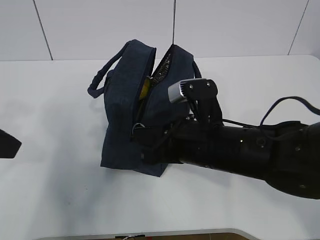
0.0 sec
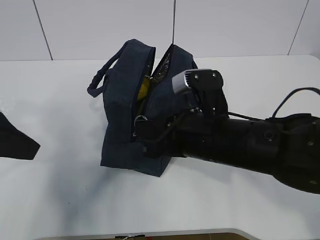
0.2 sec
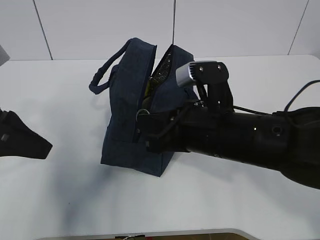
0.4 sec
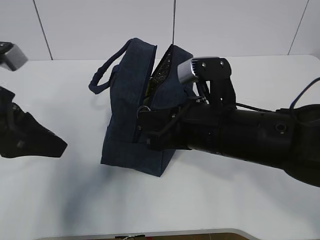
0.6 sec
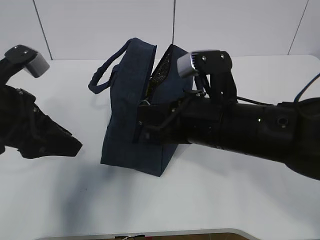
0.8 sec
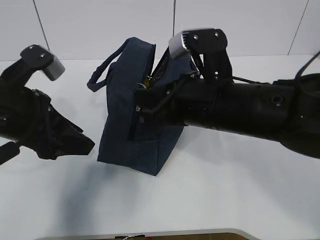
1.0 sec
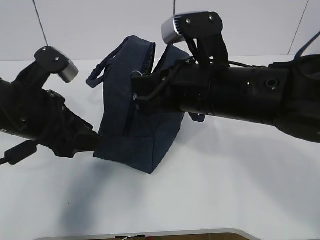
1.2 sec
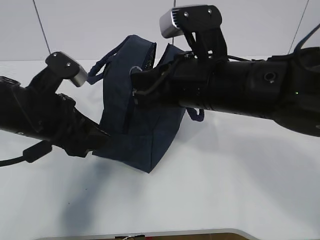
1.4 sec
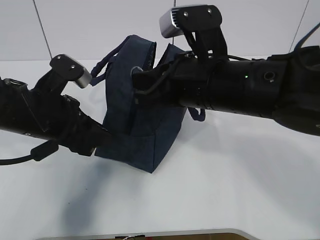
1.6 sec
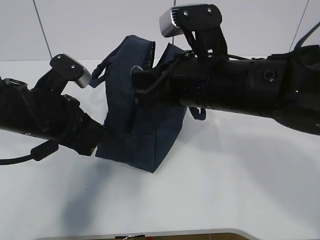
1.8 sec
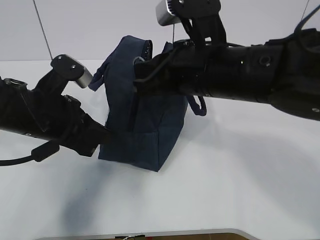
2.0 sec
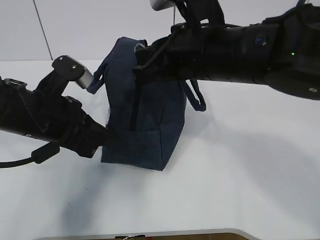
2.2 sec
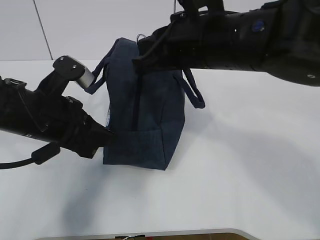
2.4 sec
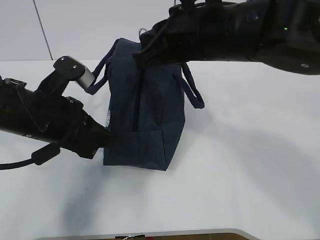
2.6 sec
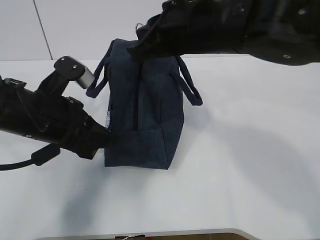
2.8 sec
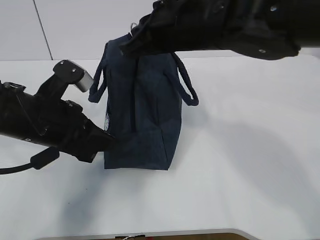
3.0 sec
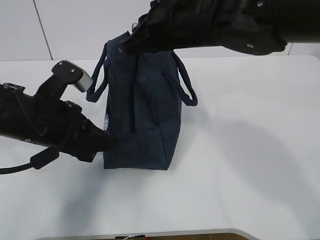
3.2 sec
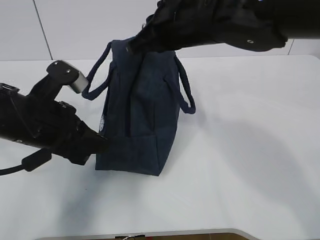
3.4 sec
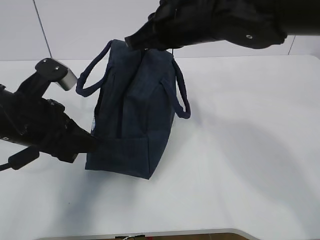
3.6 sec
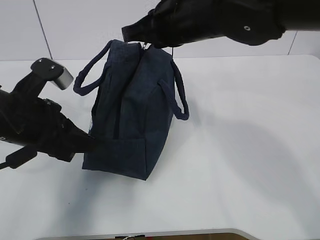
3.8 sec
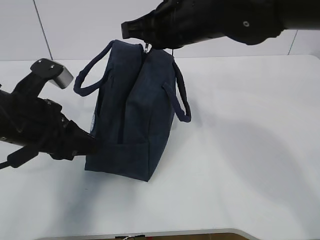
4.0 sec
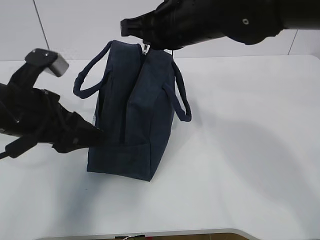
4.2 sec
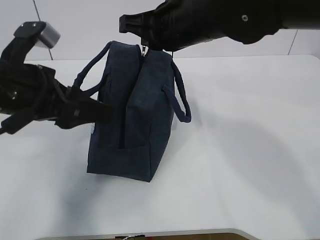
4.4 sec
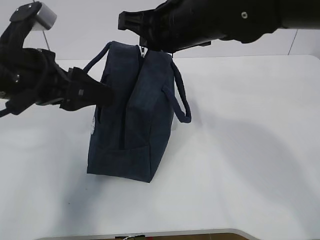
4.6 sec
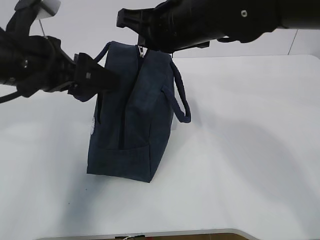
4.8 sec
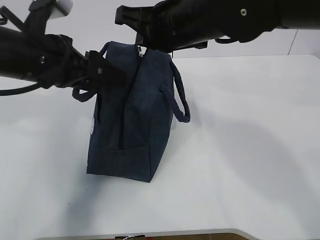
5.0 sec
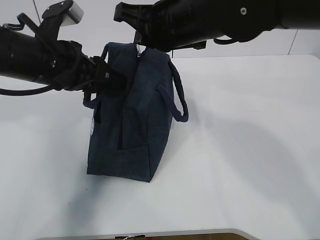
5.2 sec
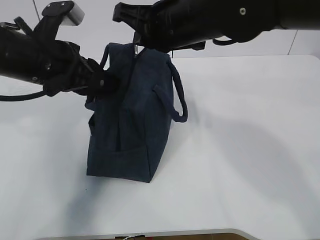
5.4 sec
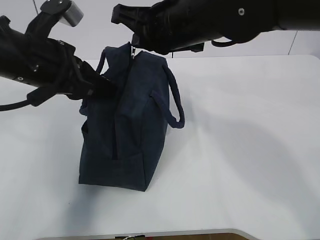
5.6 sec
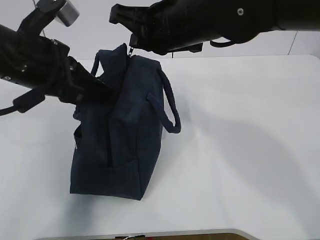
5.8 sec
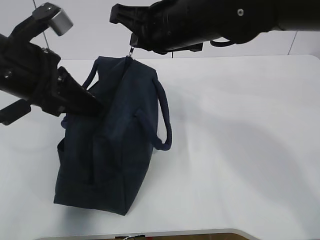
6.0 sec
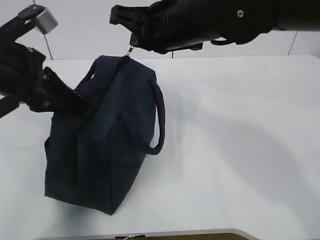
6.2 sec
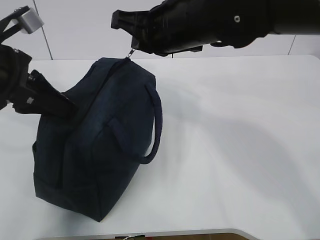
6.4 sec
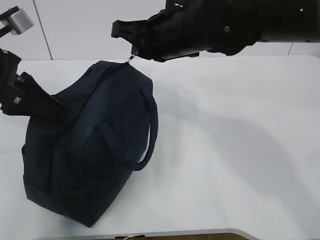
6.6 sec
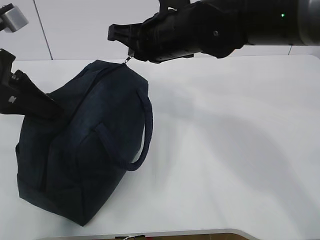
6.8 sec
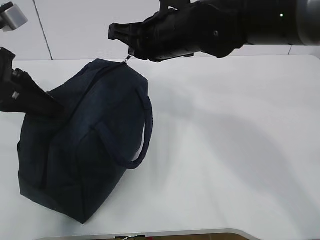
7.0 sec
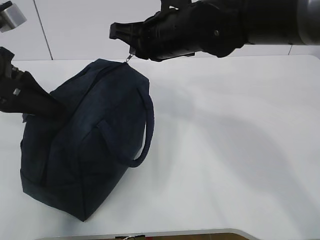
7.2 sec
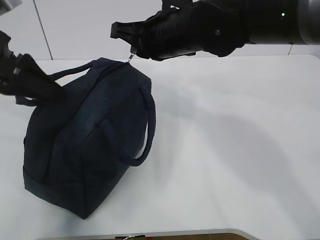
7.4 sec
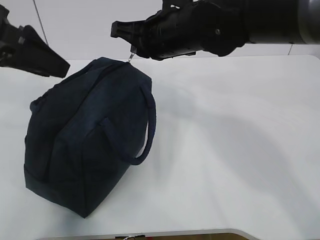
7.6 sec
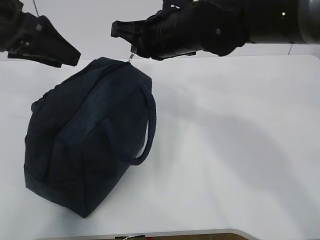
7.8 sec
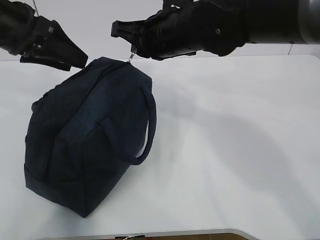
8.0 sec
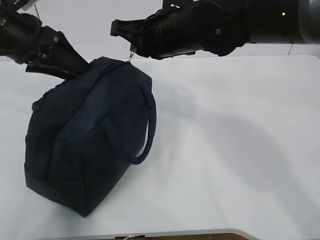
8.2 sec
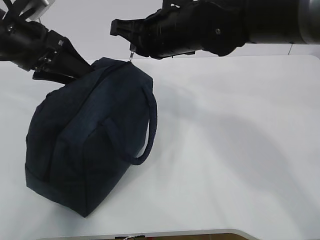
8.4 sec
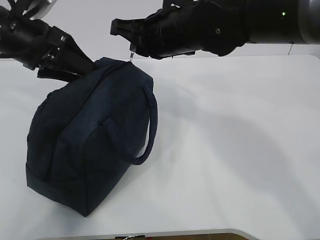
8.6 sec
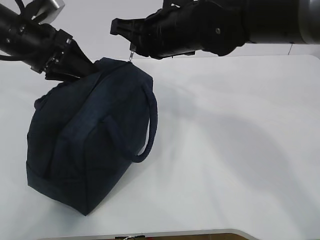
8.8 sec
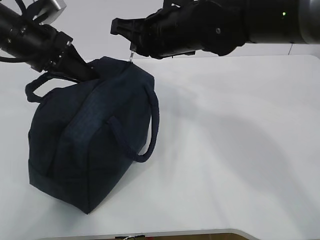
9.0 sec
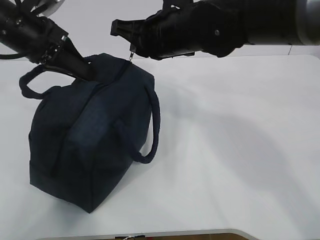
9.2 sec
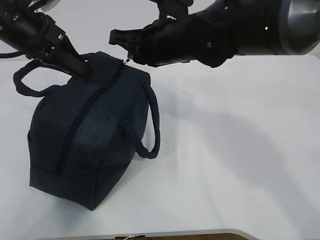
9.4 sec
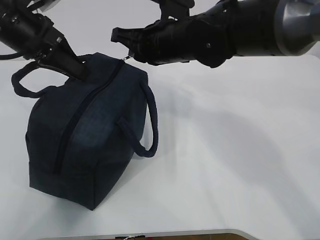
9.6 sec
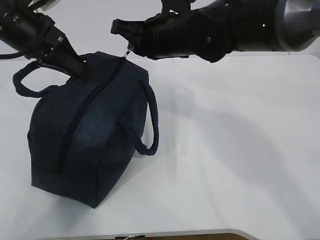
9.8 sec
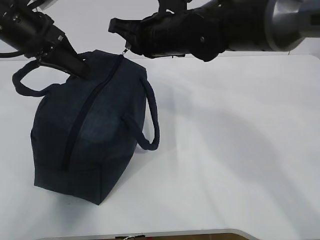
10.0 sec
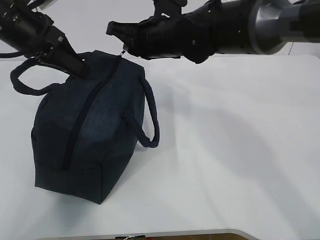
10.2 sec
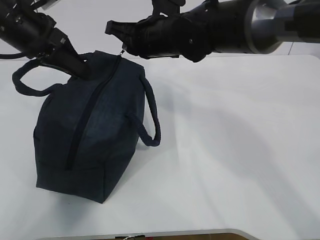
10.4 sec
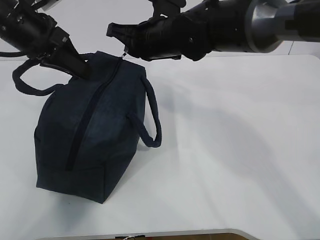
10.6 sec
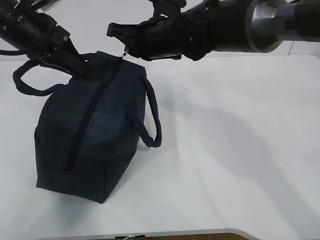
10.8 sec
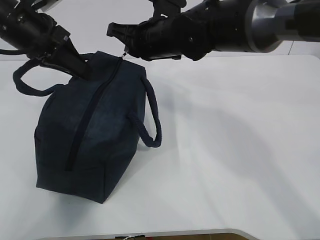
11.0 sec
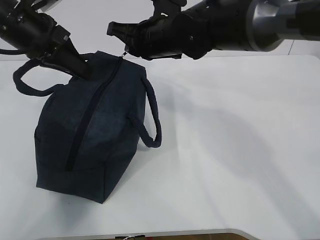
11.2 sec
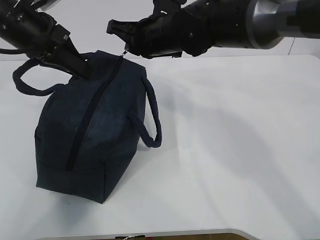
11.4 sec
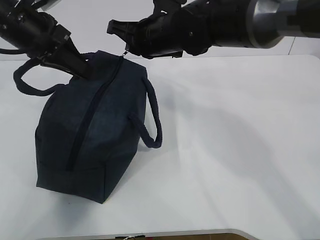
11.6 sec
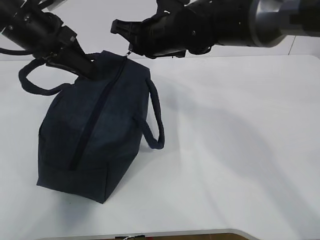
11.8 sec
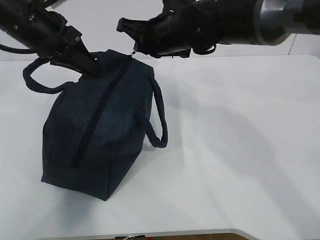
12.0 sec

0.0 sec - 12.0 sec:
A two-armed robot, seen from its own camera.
Step, 0.0 sec - 4.0 sec: Pull the zipper with your right hand.
Step, 4.2 sec - 4.4 sec: Grab the lunch bag with your left hand.
0.0 sec - 1.6 sec: The left gripper is displaced downward, to the right and forward by approximately 15 cm, while the right gripper moves upward, some 10 cm.
1.6 sec - 3.0 sec: The right gripper shifts approximately 5 cm forward, while the left gripper closes.
3.0 sec - 4.4 sec: The left gripper moves upward, roughly 5 cm, and opens its fingers.
4.4 sec - 6.0 sec: The left gripper closes.
6.0 sec - 7.6 sec: The left gripper moves to the left, roughly 5 cm, and opens up.
7.6 sec - 9.0 sec: The left gripper moves forward and downward, roughly 10 cm, and closes its fingers.
9.0 sec - 10.4 sec: The right gripper changes place by about 5 cm.
10.4 sec - 12.0 sec: The grippers make only small movements.

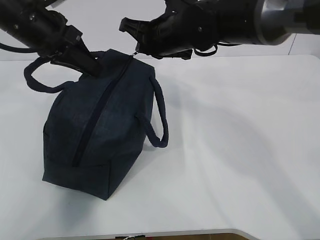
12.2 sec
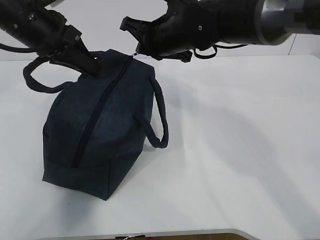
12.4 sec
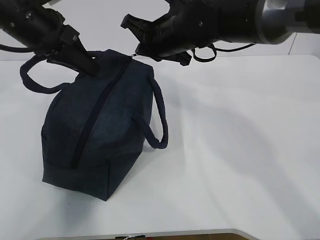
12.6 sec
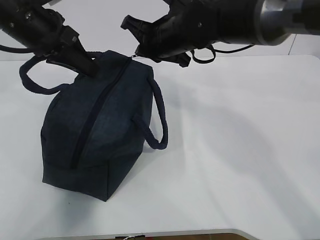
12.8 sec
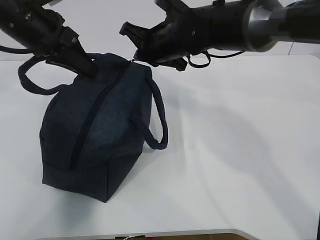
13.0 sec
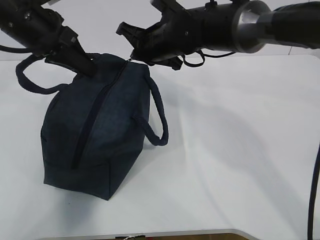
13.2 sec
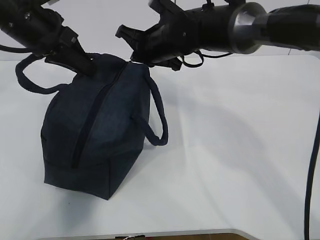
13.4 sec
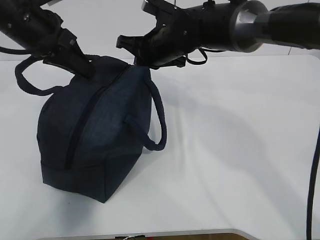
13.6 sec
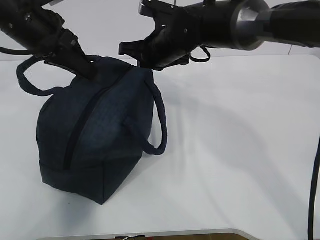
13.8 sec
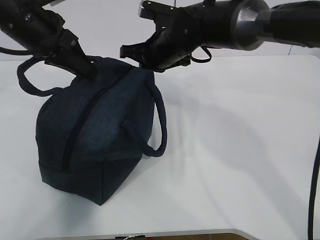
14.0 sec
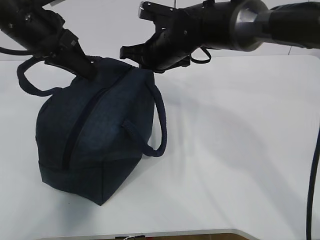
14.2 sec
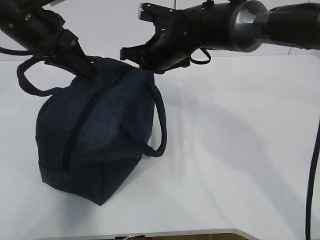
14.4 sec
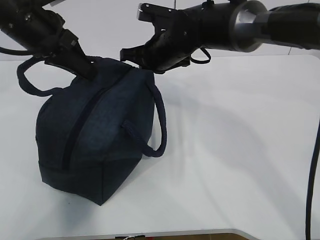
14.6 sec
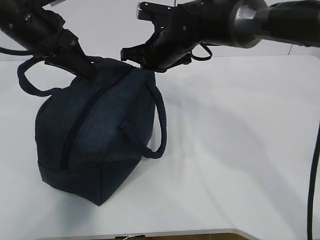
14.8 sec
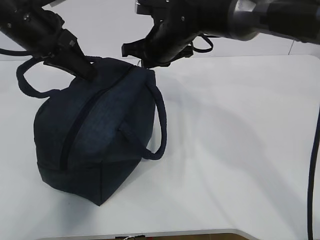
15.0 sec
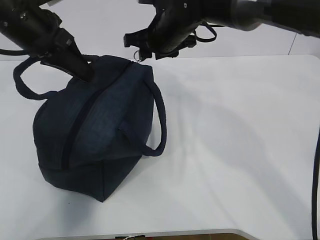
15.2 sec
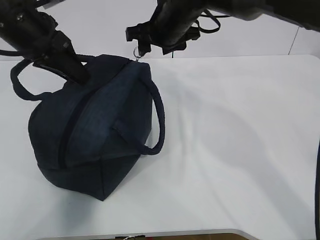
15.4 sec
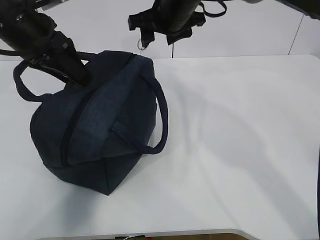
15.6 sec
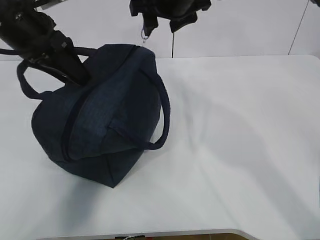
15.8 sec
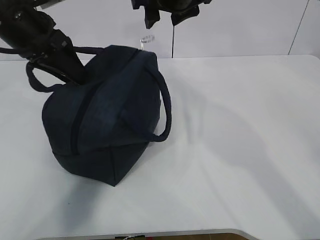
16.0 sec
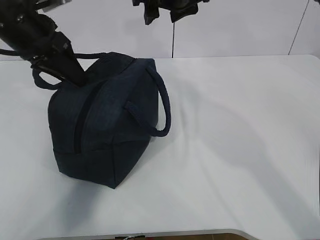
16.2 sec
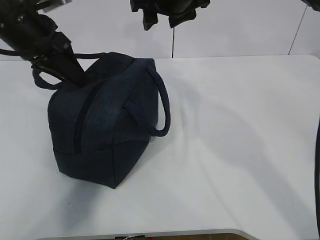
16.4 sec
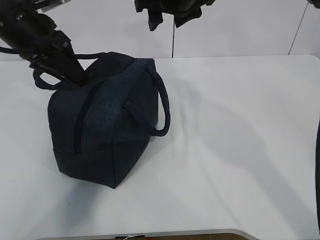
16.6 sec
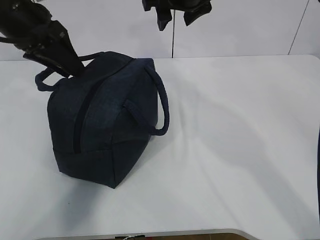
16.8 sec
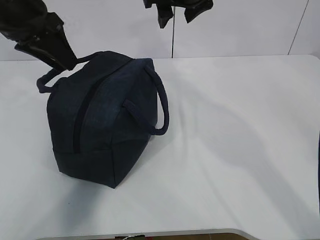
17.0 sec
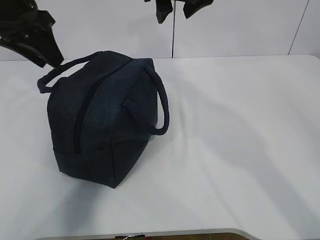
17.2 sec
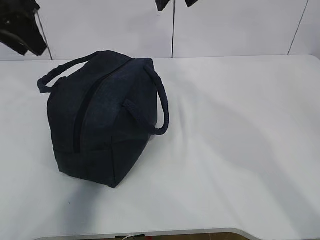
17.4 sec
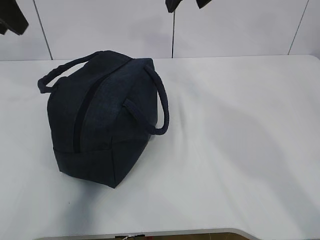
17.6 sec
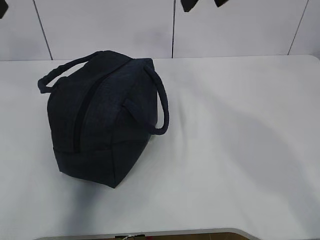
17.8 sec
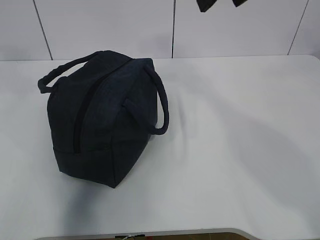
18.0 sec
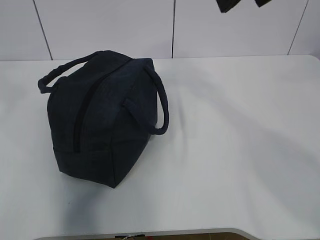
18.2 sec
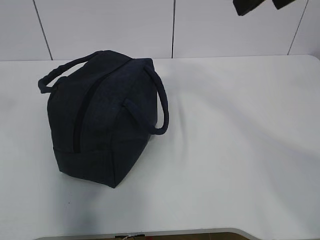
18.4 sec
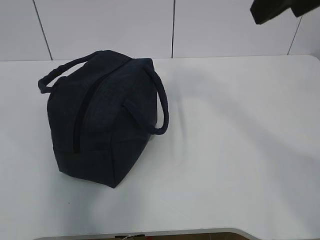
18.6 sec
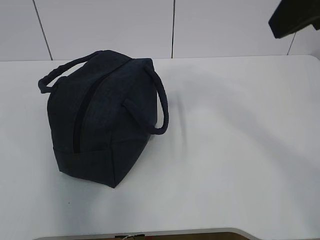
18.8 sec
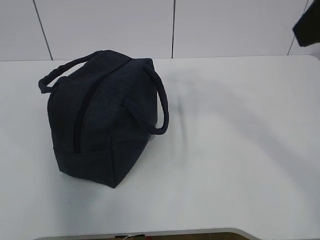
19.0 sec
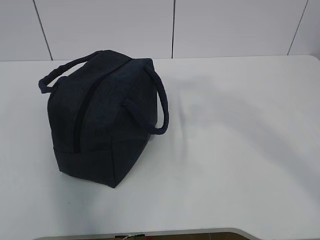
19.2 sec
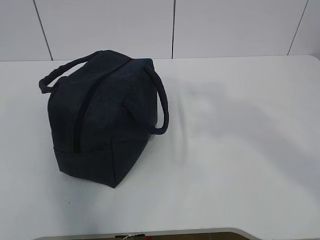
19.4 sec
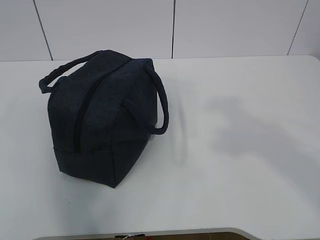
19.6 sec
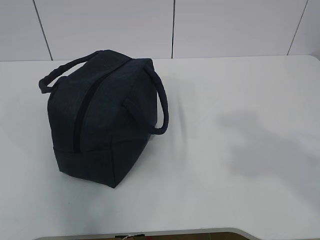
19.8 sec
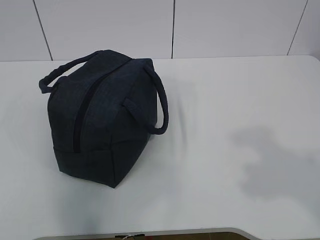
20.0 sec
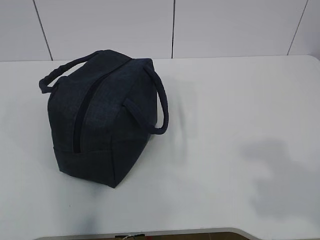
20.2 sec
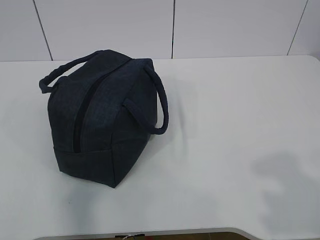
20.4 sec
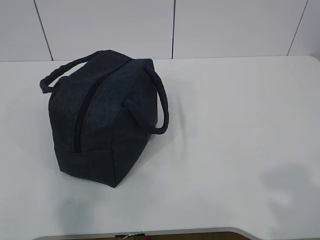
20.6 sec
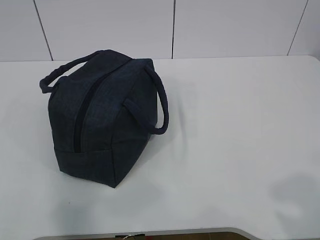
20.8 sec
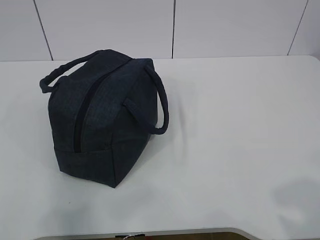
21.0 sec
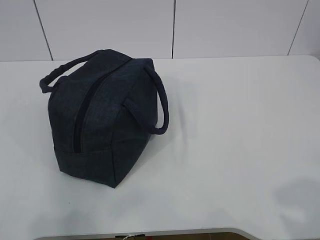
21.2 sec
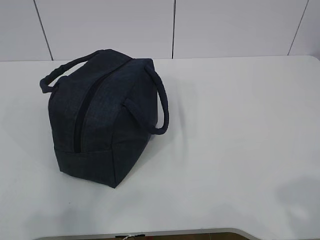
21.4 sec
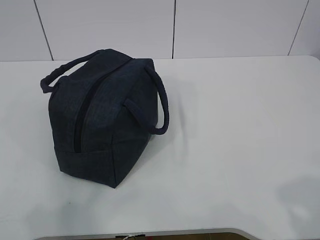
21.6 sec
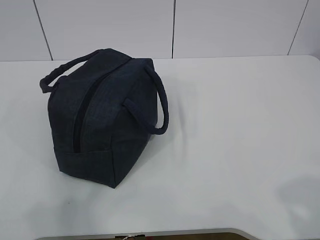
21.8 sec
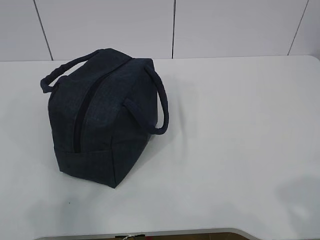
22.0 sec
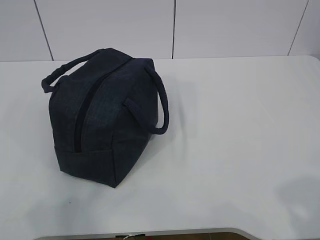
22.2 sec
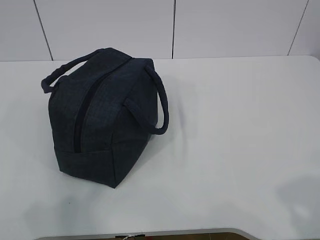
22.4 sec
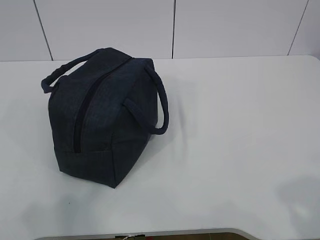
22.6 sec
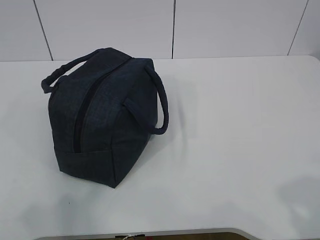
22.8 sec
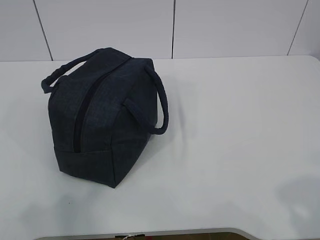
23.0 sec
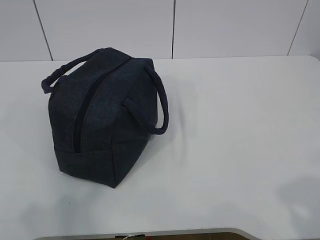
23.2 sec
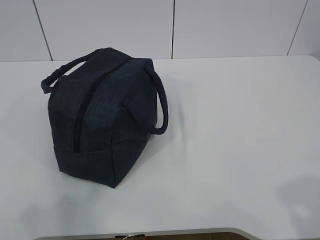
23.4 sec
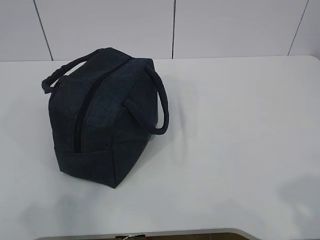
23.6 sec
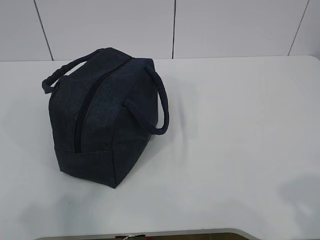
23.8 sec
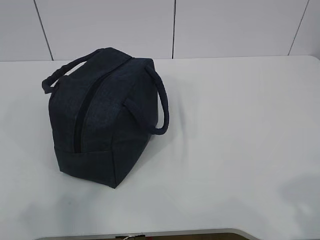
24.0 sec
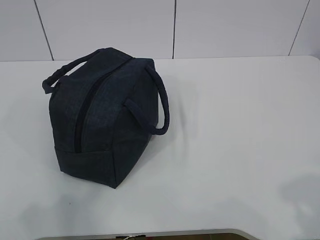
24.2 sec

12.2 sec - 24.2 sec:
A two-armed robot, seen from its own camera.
12.2 sec - 13.8 sec: The grippers move only a little.
13.8 sec - 15.2 sec: The right gripper opens up.
15.2 sec - 16.6 sec: The left gripper opens its fingers. The right gripper moves upward, roughly 10 cm, and opens.
16.6 sec - 18.2 sec: The left gripper travels backward, upward and to the left by some 20 cm; the right gripper shifts roughly 20 cm backward, upward and to the right.
18.2 sec - 19.8 sec: The left gripper is displaced backward by about 20 cm.
19.8 sec - 21.2 sec: The left gripper shifts some 15 cm downward.
22.6 sec - 24.2 sec: Both grippers stay about where they are.
